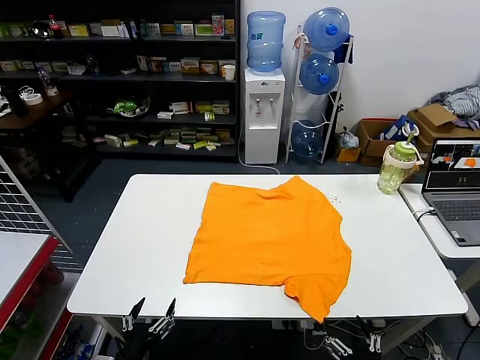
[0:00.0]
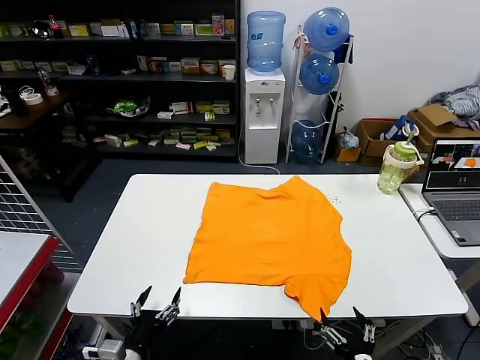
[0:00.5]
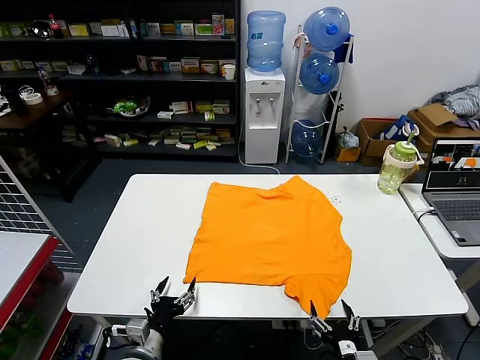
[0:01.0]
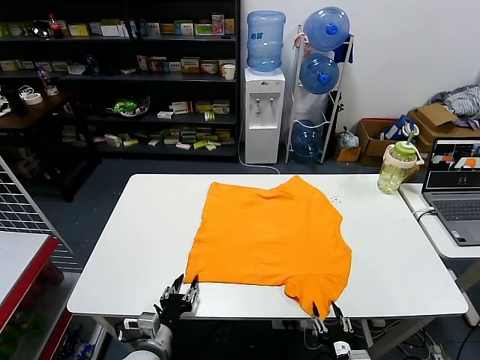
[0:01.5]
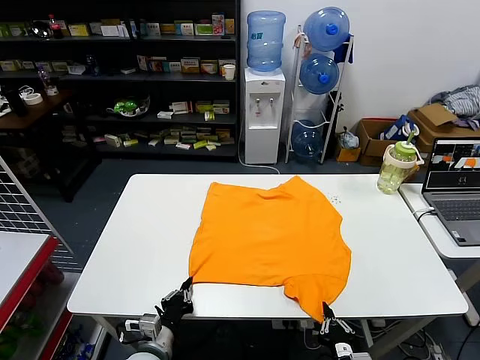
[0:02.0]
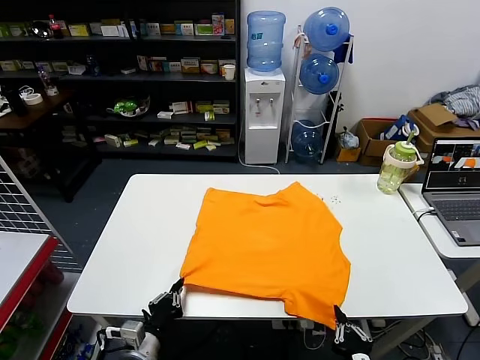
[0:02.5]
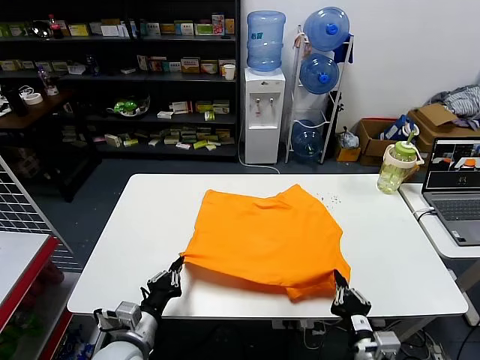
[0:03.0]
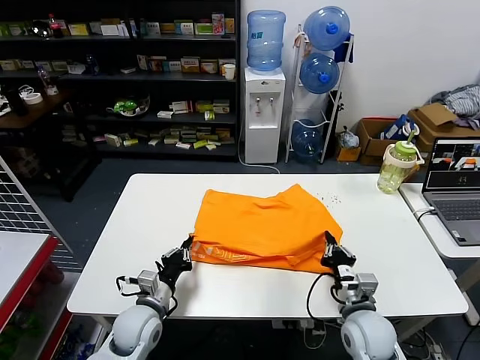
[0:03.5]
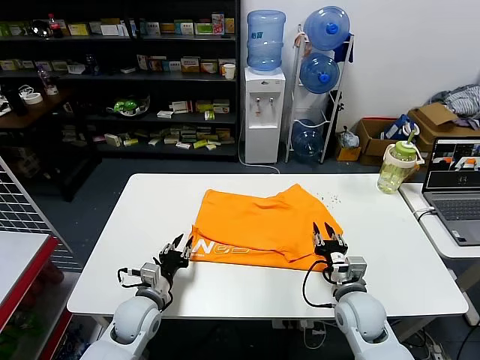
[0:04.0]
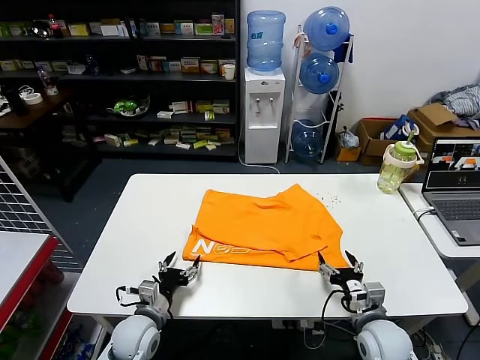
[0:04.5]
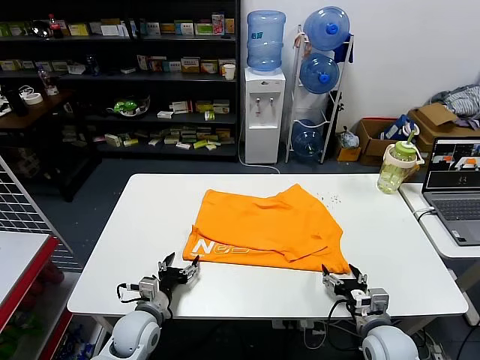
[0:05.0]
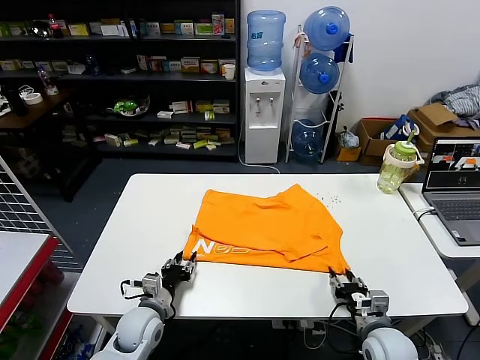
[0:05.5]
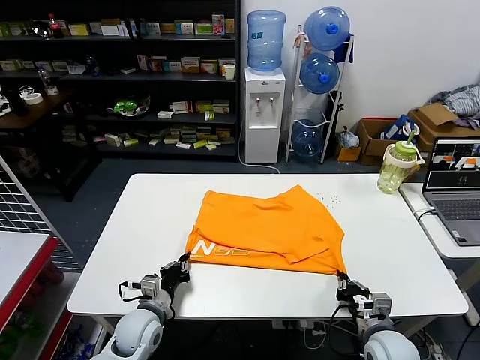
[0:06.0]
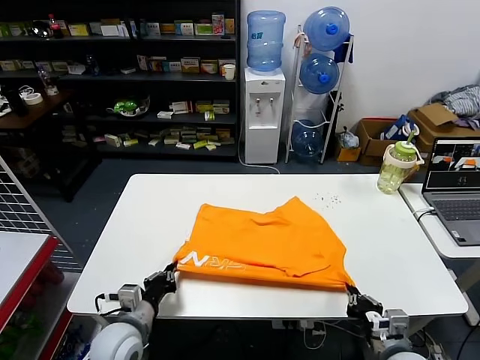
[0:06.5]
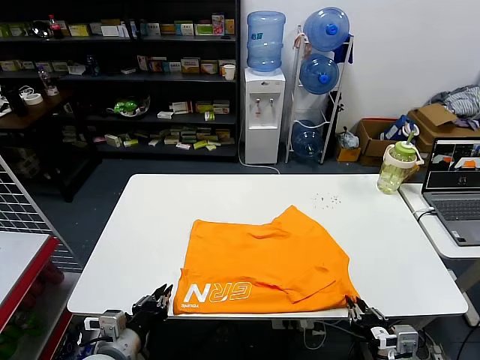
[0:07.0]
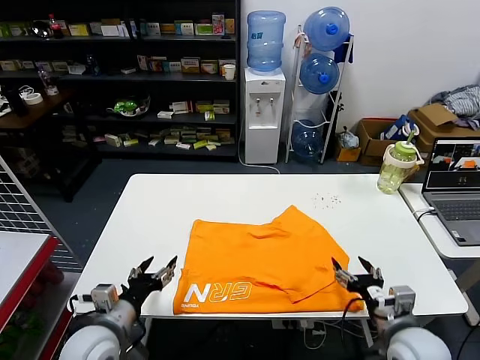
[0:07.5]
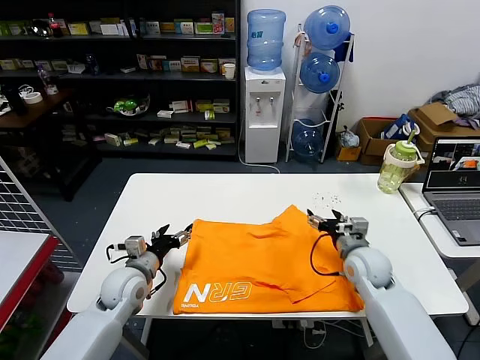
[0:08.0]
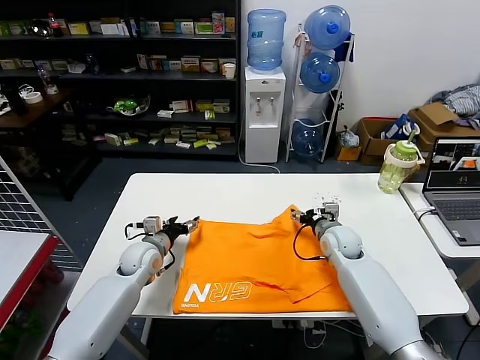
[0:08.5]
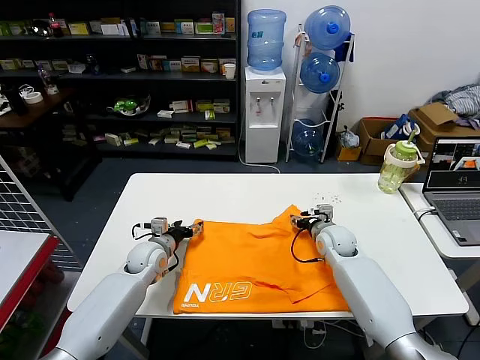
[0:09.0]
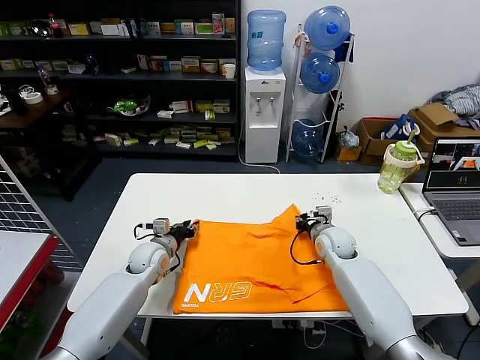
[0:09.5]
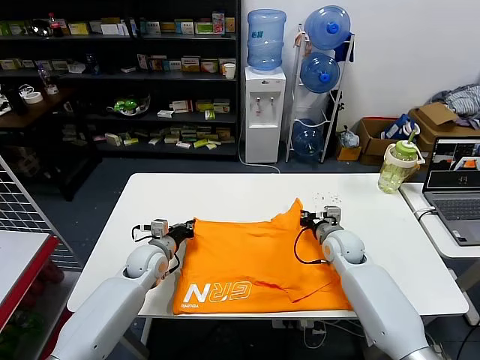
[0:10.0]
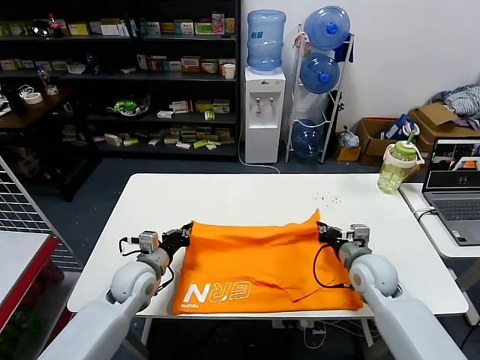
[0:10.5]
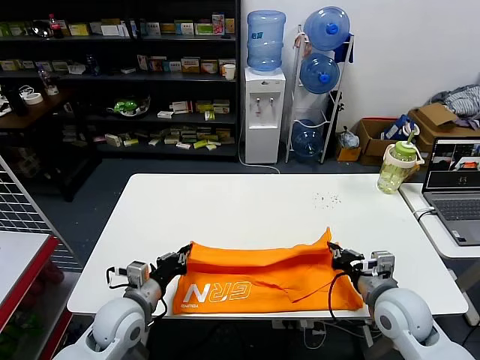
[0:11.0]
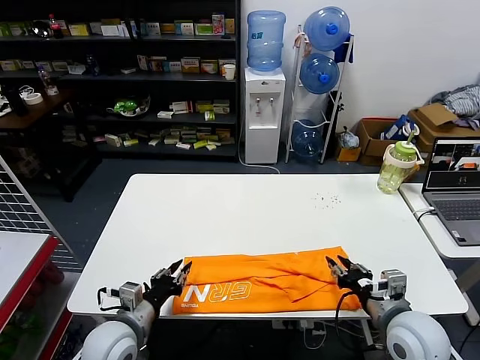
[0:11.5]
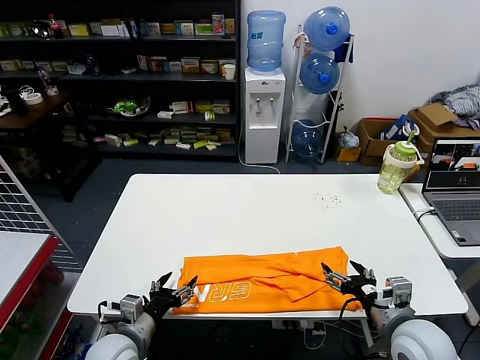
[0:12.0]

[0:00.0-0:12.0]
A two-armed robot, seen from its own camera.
Task of the whole recording: fold and organize the clothes.
Step, 0.0 to 2.0 s: use both grippers simultaneously to clamp the lower edge of the clothing fabric.
Step, 2.5 to 3.5 s: use both grippers to drag the lower edge of the fabric forward and fold it over the upper edge.
Step, 4.0 to 7.0 s: Drag the clothes downward with both gripper.
Step, 7.5 to 9.5 s: use both grippers simultaneously to clamp the upper edge of the clothing fabric.
Step, 10.0 to 11.5 s: use both grippers to drag the upper edge of the fabric backward and fold it over the lower edge.
2.0 to 4.0 s: The left gripper shifts approximately 10 cm forward, and opens its fingers. Meanwhile the right gripper shifts some 20 cm forward, and opens its fingers.
4.0 to 6.0 s: The right gripper shifts approximately 10 cm backward and to the right, and closes its fingers. Meanwhile the left gripper closes its fingers.
6.0 to 8.0 s: The left gripper is displaced upward by approximately 10 cm, goes backward and returns, some 10 cm each way, and opens its fingers, while the right gripper travels forward and upward by roughly 15 cm, and opens up.
8.0 to 10.0 s: Both grippers move forward, about 10 cm. The right gripper closes up. Meanwhile the left gripper closes.
10.0 to 12.0 s: Both grippers move backward, some 25 cm. The right gripper opens; the left gripper opens up.

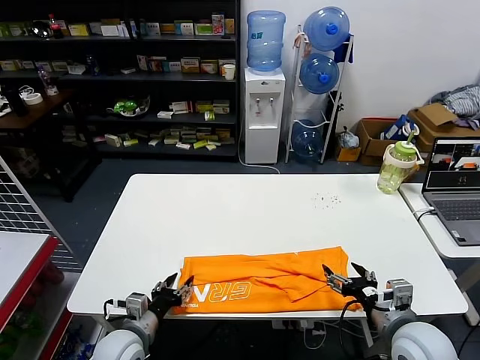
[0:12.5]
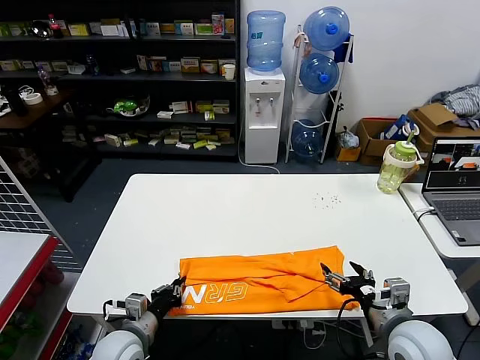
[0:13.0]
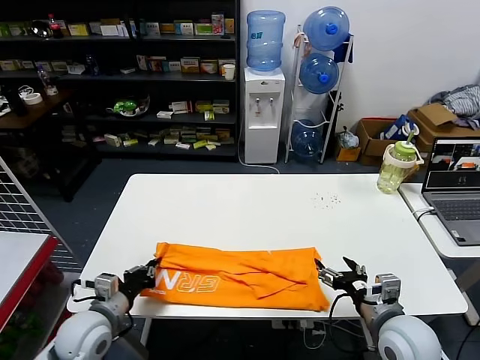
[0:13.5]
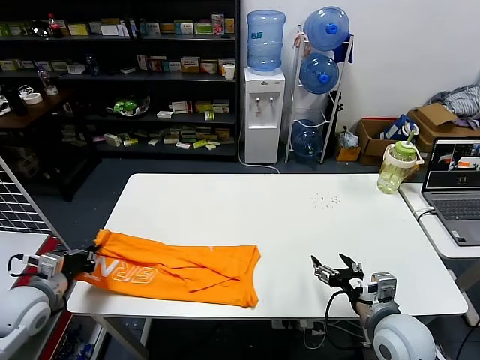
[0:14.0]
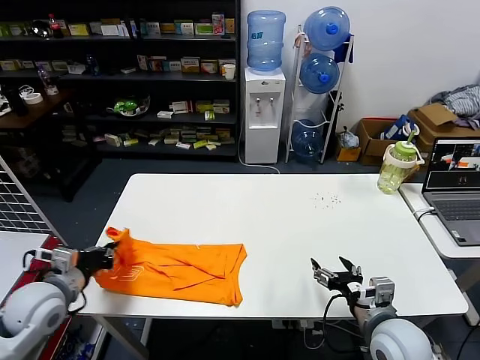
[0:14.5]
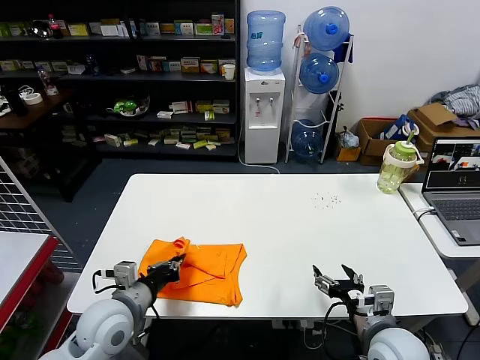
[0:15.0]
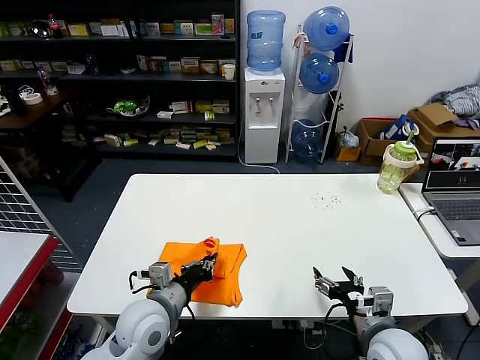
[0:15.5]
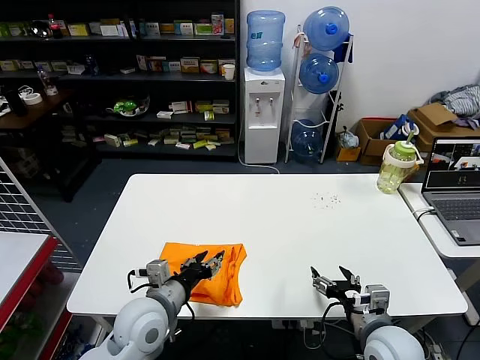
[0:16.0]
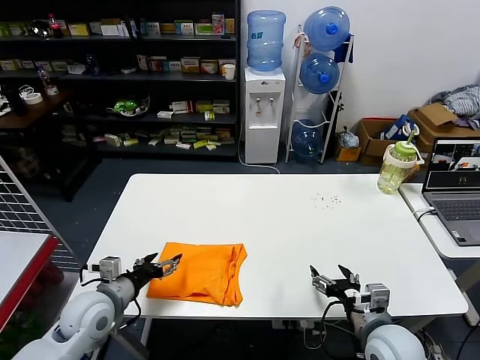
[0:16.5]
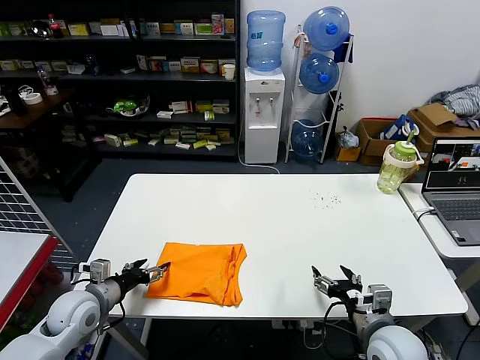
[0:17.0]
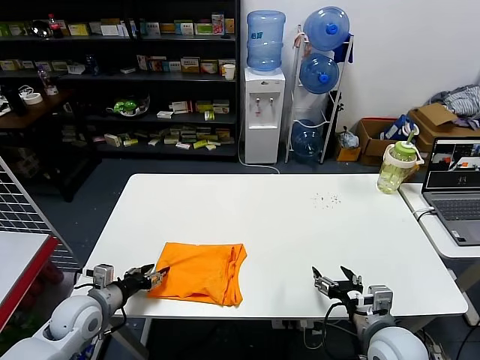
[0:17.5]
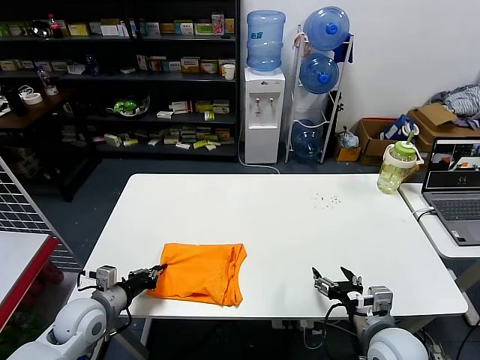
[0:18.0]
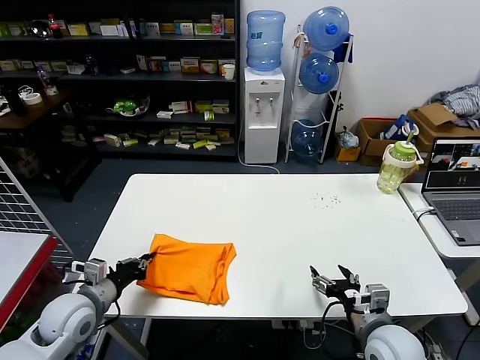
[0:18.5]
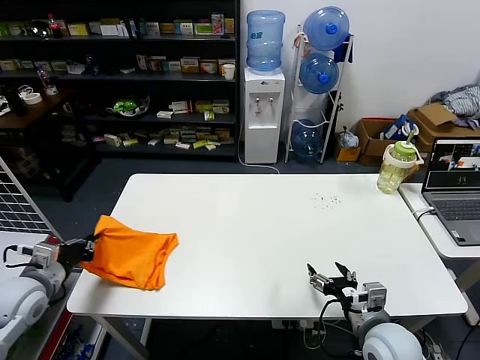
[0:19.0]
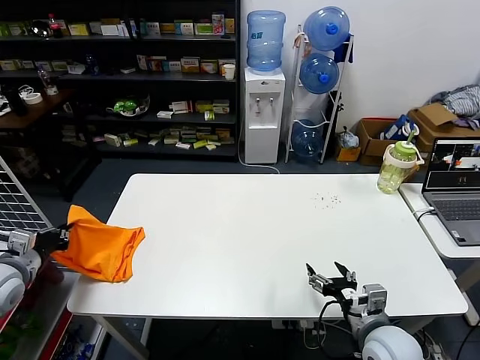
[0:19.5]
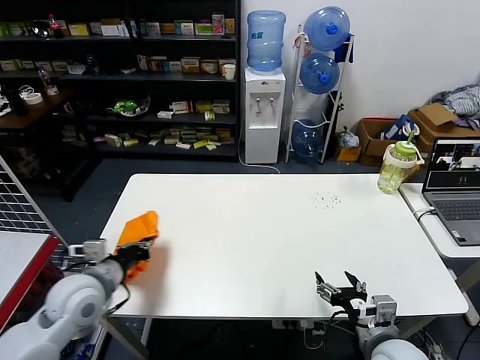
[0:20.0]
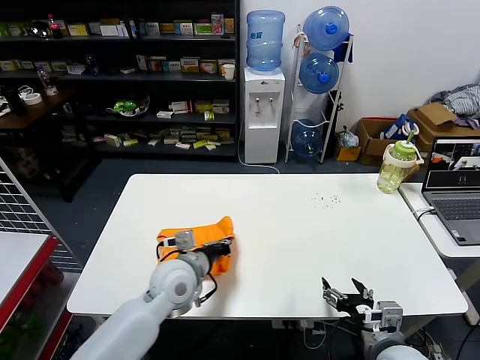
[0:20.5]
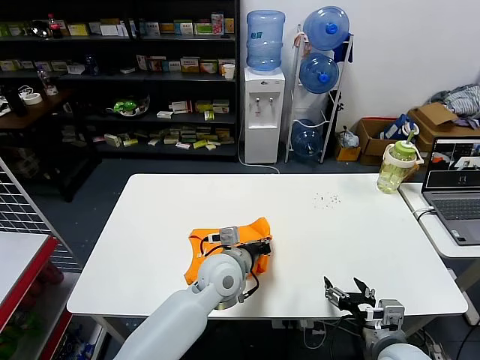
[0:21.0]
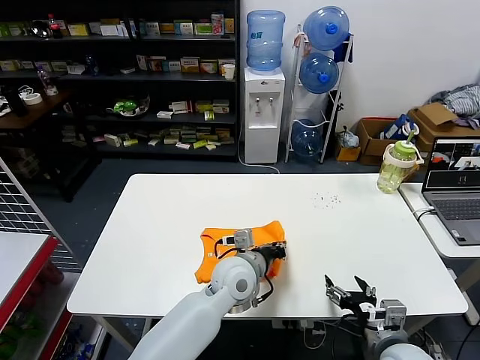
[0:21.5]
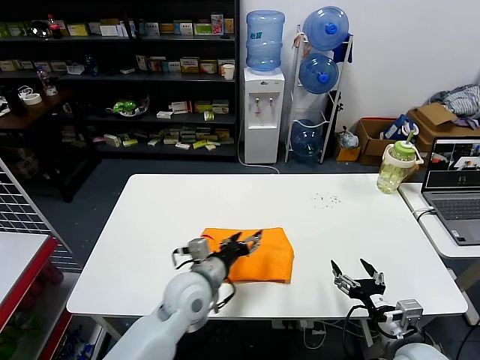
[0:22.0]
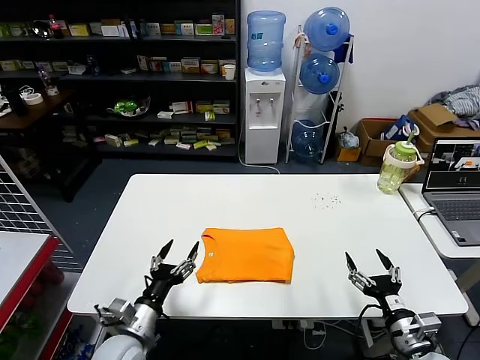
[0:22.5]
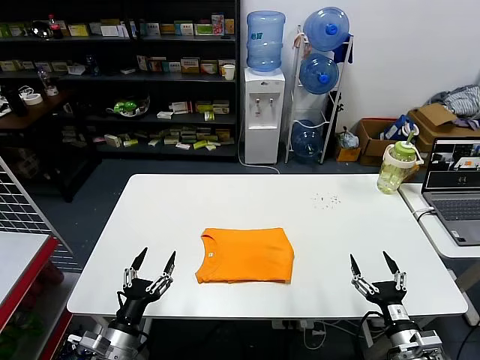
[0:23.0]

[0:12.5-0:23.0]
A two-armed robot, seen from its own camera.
Task of the whole recording: fold and organize the clothes.
Step, 13.5 to 15.5 s: use the left gripper to drag the left edge of the fabric to the left and folds it over the right edge.
Step, 16.0 to 21.5 s: Flip the folded clothes over with left gripper.
12.5 to 14.5 s: The left gripper shifts approximately 20 cm to the left and upward, and closes up.
14.5 to 16.5 s: The left gripper is displaced to the right and downward by about 15 cm, and opens up.
16.5 to 19.0 s: The left gripper shifts roughly 15 cm to the left, and closes its fingers.
19.0 to 21.0 s: The left gripper goes about 35 cm to the right.
21.0 to 23.0 s: The right gripper travels to the right and downward by approximately 10 cm; the left gripper goes about 30 cm to the left, backward and downward, and opens.

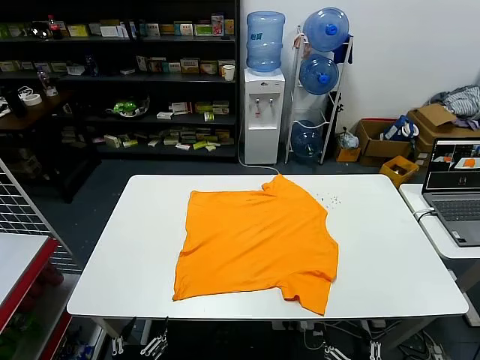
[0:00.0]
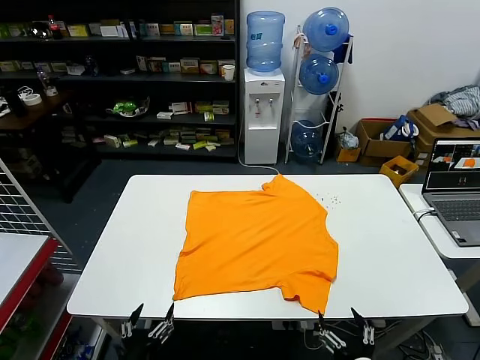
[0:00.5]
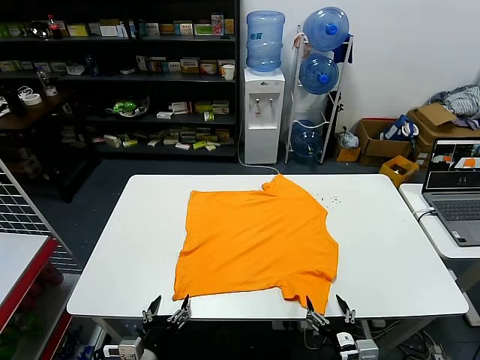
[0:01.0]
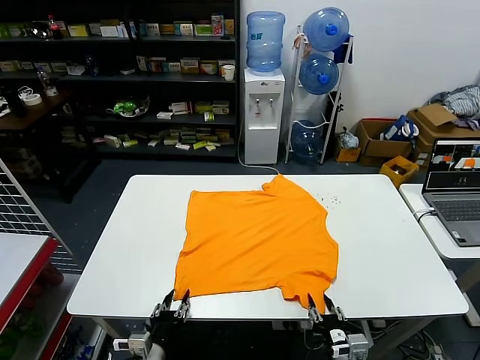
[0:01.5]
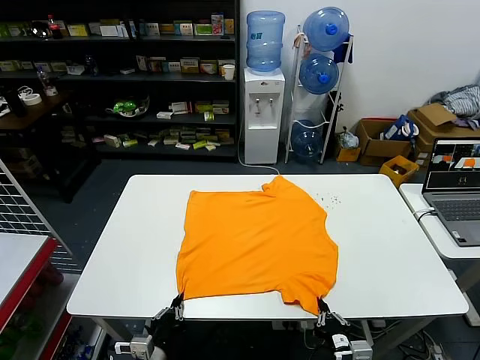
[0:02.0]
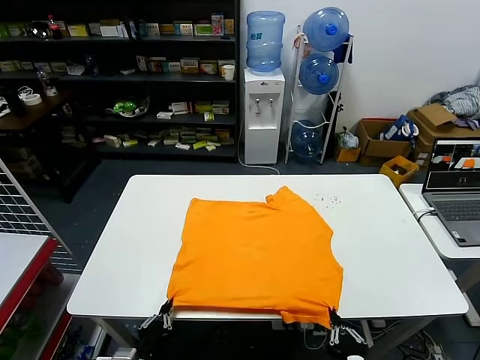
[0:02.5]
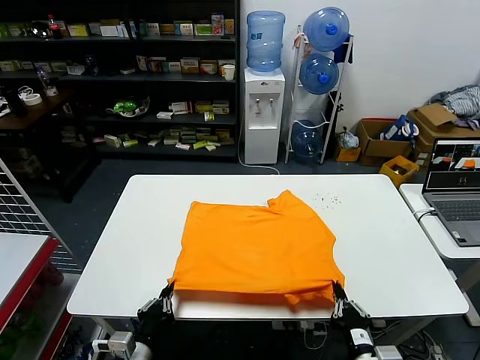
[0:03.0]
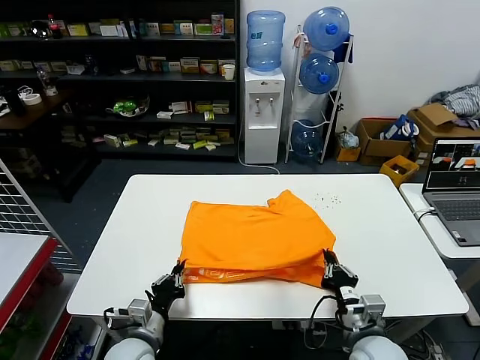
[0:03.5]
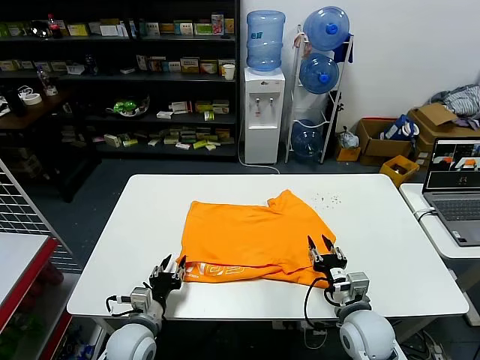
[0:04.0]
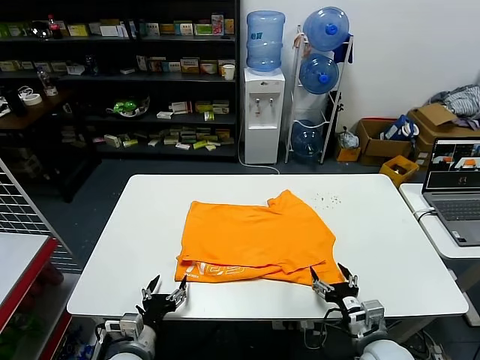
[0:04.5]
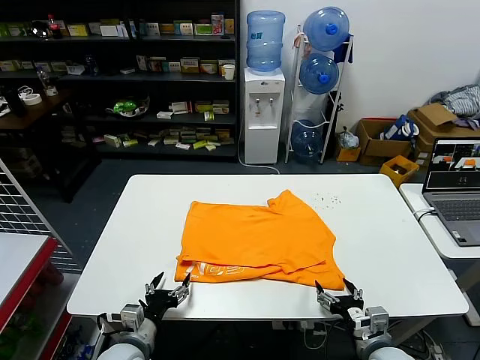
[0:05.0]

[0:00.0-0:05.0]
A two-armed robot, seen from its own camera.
Task of the whole recording: fold and organize the clothes.
Step, 0.0 to 1.5 s: use both grippers simultaneously to clamp the lower edge of the clothing fabric.
Step, 2.5 to 3.5 s: use both grippers to drag the lower edge of the fabric forward and fold it over the upper edge.
2.5 to 5.0 s: The left gripper moves forward, some 10 cm, and opens; the right gripper is displaced forward and to the right by roughly 15 cm, and opens.
